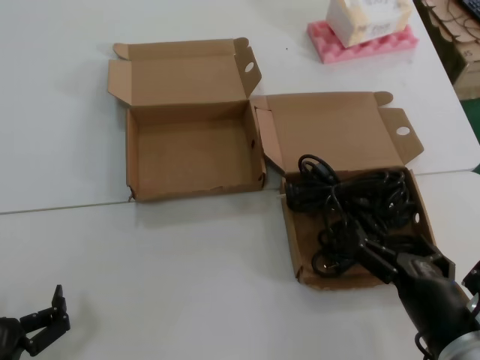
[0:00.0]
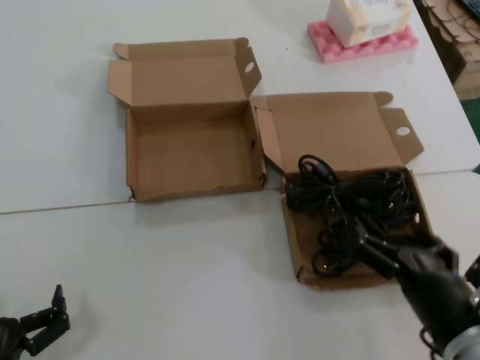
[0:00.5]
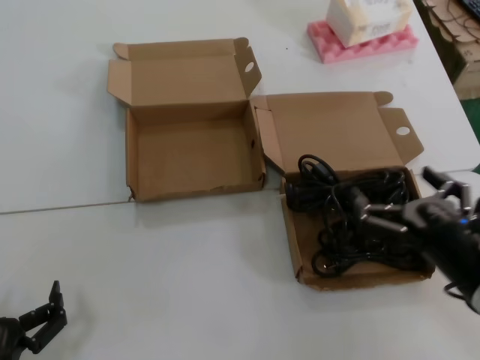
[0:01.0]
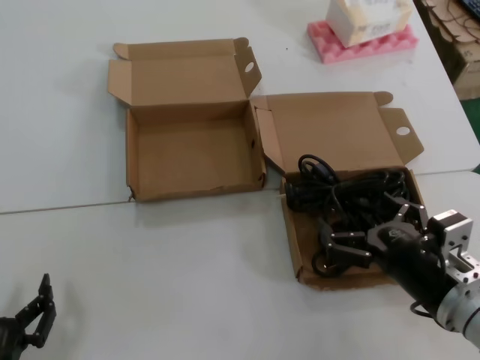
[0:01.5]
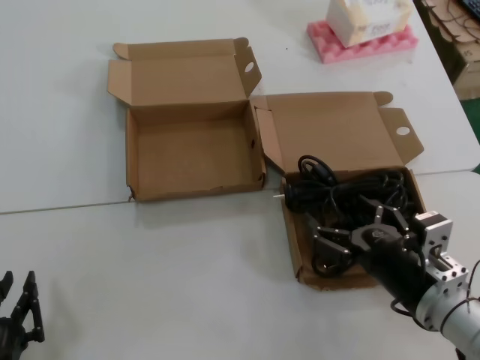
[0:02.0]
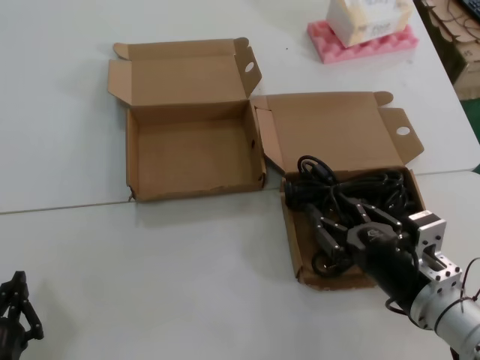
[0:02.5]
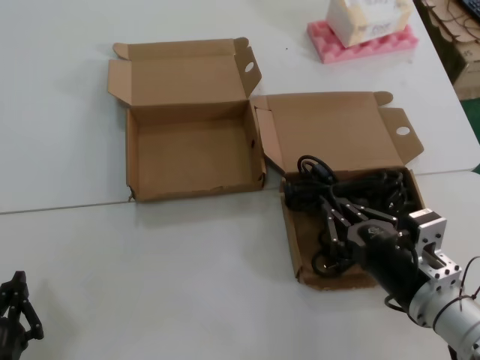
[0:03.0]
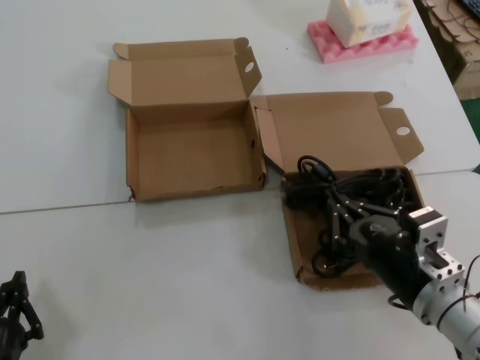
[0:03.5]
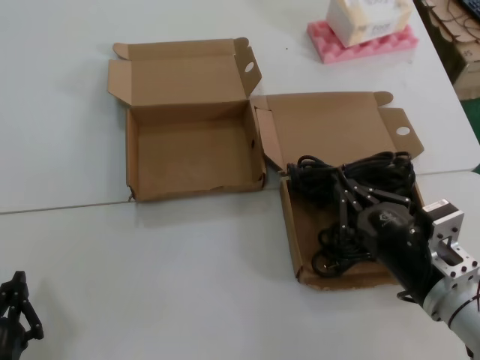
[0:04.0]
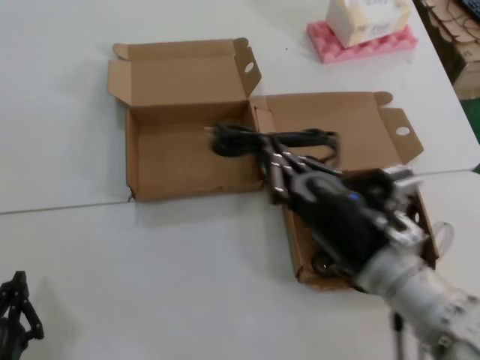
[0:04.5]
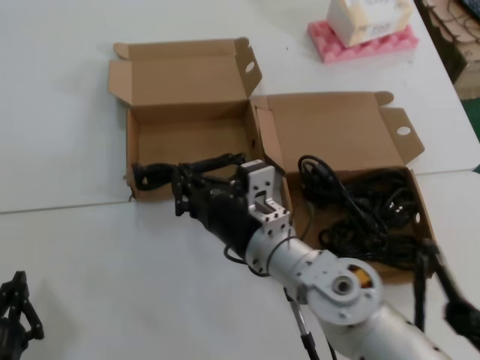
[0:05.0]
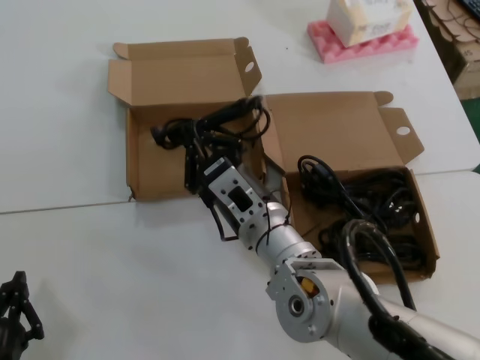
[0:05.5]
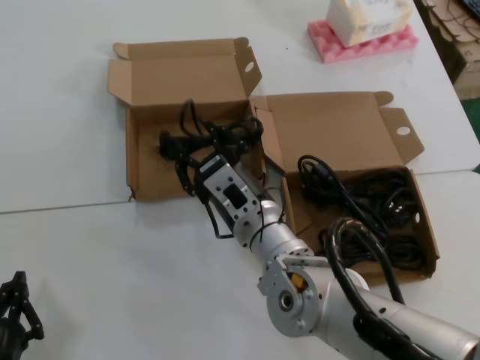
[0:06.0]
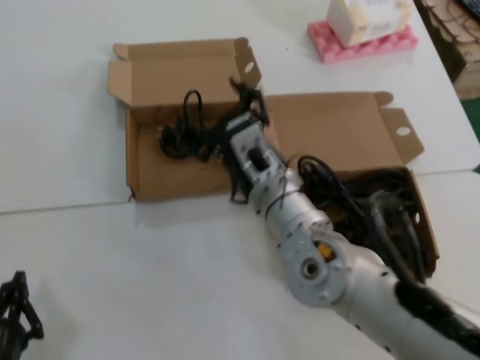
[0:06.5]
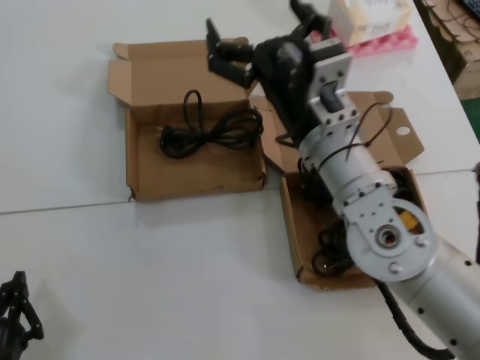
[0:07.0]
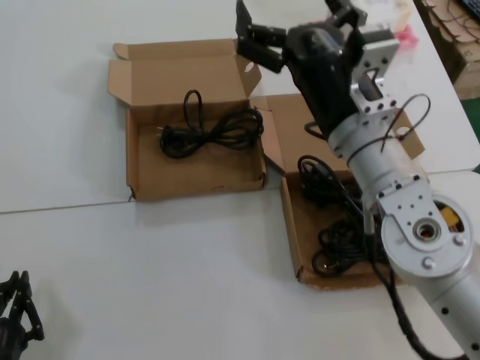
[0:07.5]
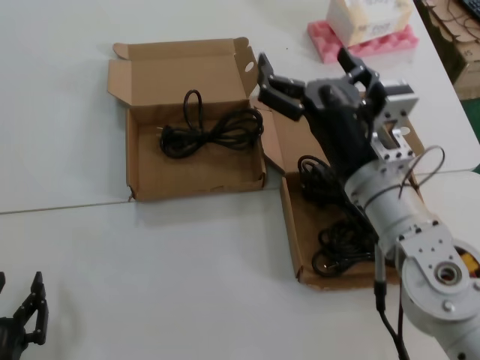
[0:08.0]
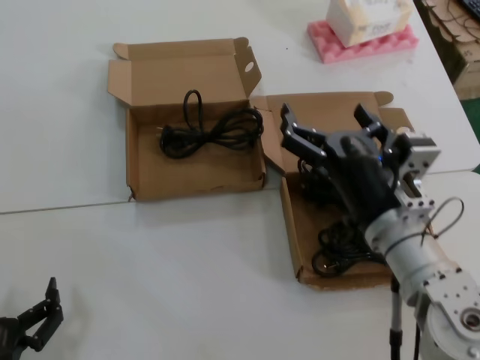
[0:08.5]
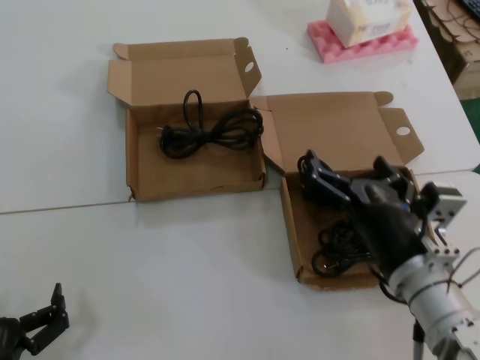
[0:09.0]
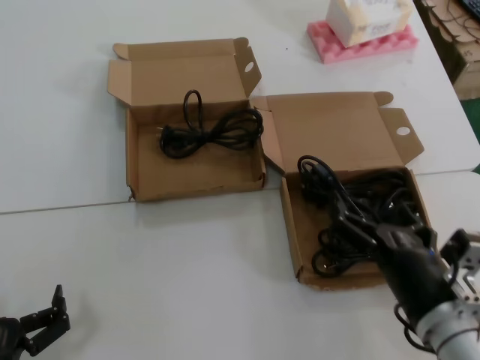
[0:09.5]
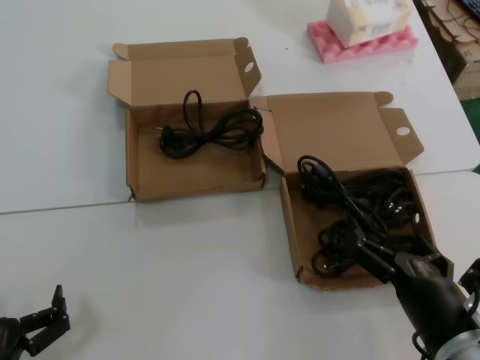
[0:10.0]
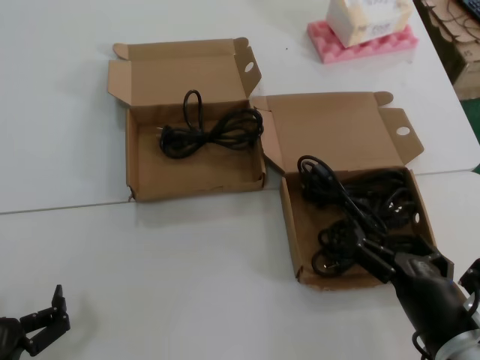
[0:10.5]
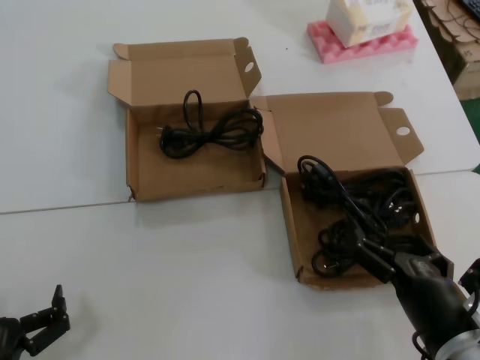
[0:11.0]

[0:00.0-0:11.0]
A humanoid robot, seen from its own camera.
Task of the whole recording: Pick up the power cord from the box containing it and place it in another box.
Step, 0:00.0 to 0:03.5: Grasp the data cable.
Step, 0:04.0 to 0:06.5: Place the data cable in the another box.
0:00.0 to 0:02.0: The right hand shifts some 5 cm forward.
0:02.0 to 0:03.5: The two hands keep their place.
0:03.5 to 0:05.5: The right hand is displaced to the left and forward by approximately 25 cm.
0:05.5 to 0:07.5: The right hand moves upward and to the right, roughly 15 cm.
0:07.5 to 0:09.0: The right hand travels downward, backward and to the right by roughly 15 cm.
0:09.0 to 0:11.0: The right hand shifts roughly 10 cm backward and downward.
